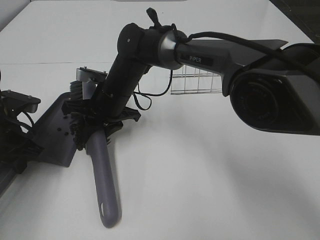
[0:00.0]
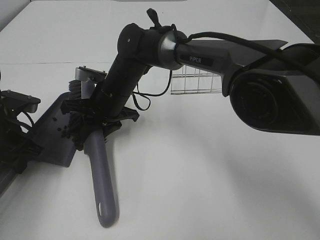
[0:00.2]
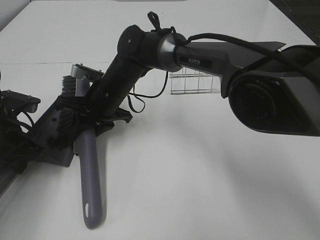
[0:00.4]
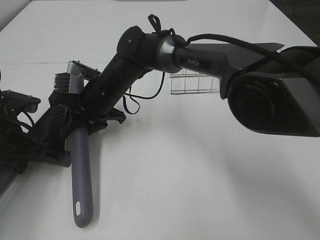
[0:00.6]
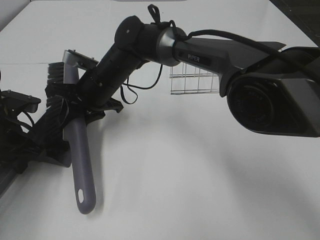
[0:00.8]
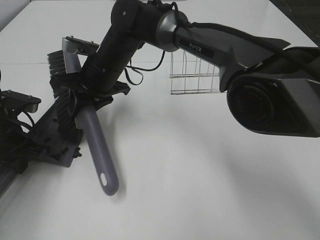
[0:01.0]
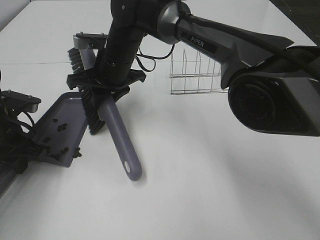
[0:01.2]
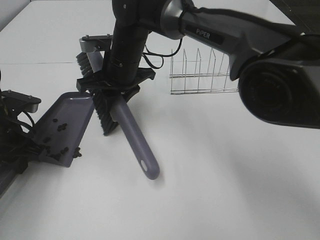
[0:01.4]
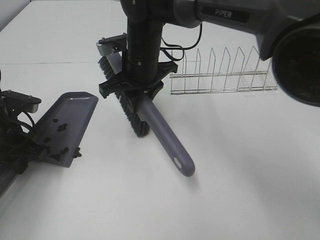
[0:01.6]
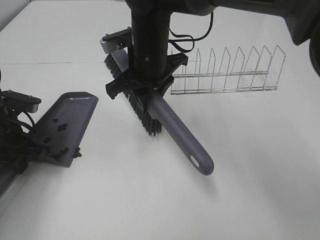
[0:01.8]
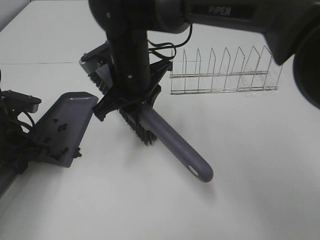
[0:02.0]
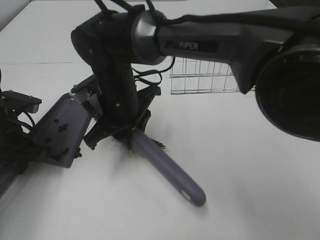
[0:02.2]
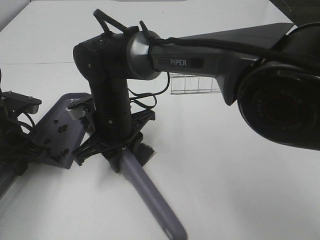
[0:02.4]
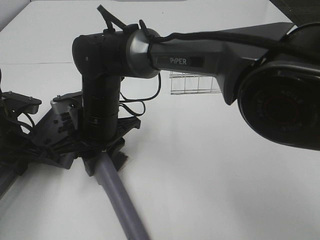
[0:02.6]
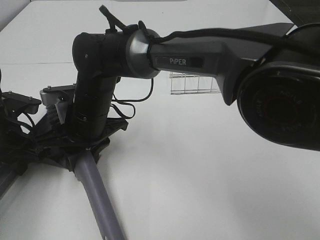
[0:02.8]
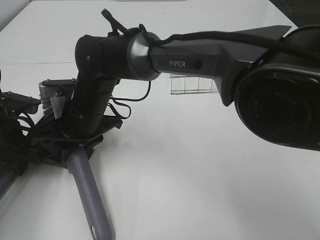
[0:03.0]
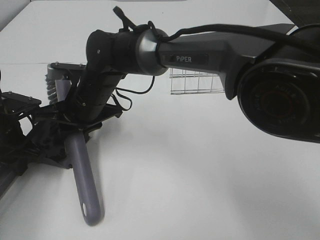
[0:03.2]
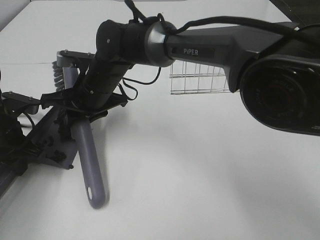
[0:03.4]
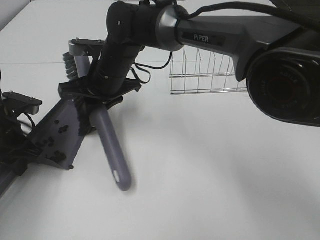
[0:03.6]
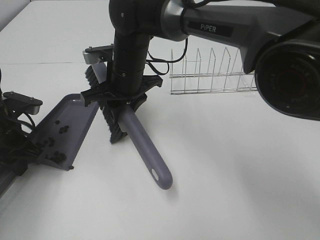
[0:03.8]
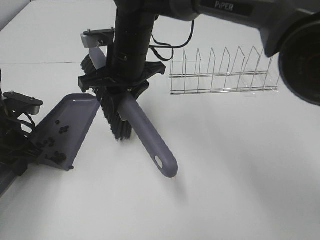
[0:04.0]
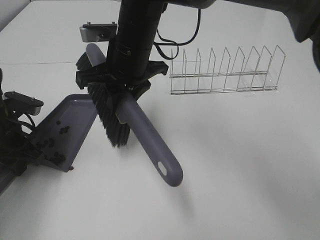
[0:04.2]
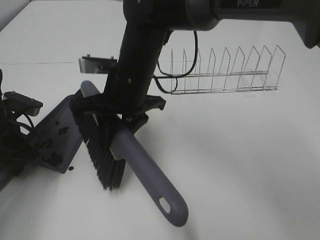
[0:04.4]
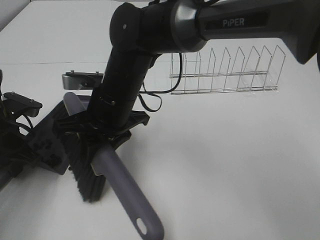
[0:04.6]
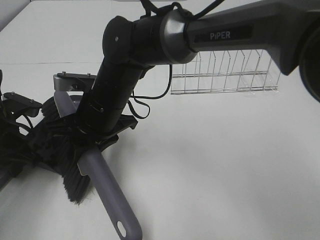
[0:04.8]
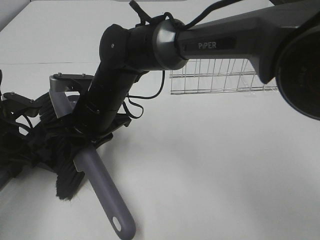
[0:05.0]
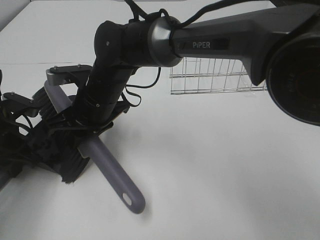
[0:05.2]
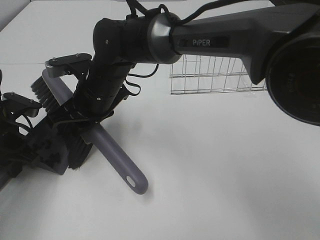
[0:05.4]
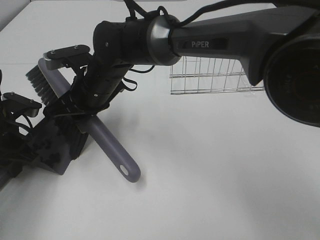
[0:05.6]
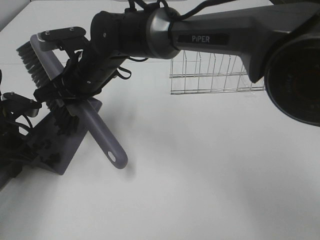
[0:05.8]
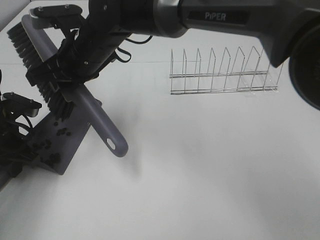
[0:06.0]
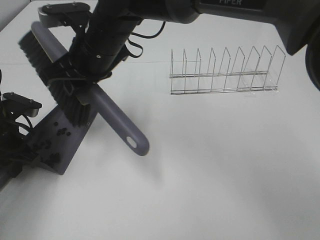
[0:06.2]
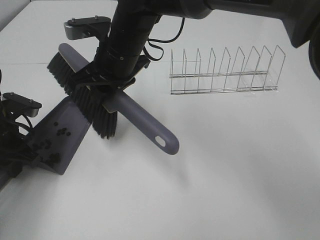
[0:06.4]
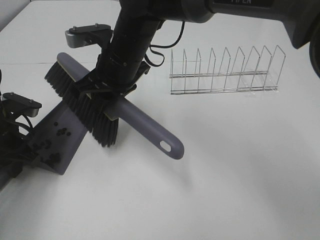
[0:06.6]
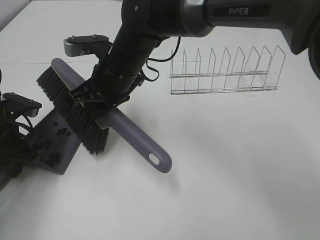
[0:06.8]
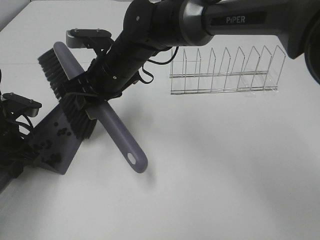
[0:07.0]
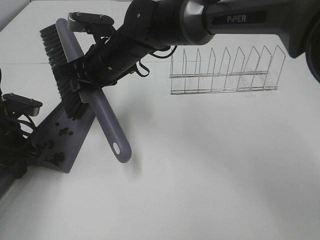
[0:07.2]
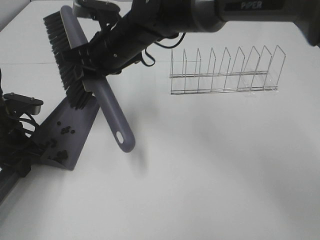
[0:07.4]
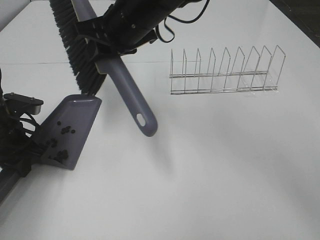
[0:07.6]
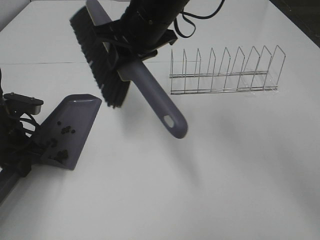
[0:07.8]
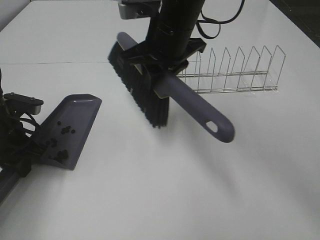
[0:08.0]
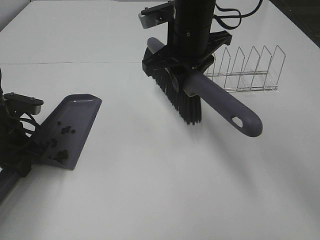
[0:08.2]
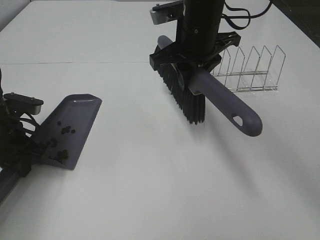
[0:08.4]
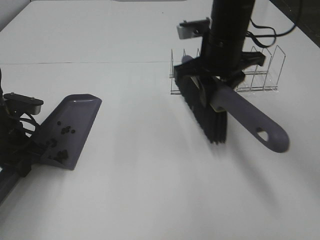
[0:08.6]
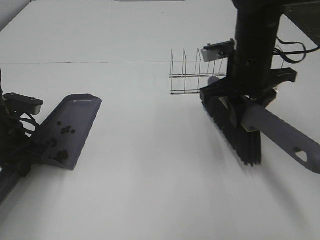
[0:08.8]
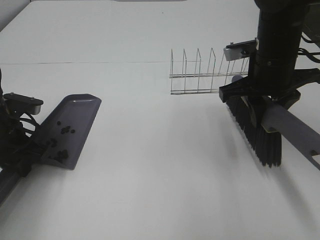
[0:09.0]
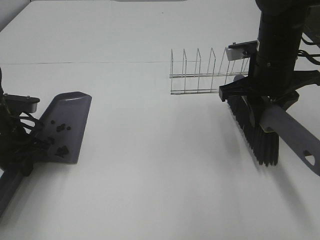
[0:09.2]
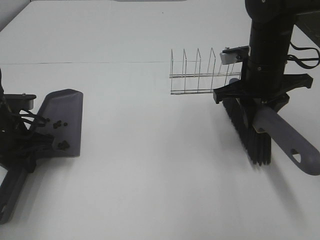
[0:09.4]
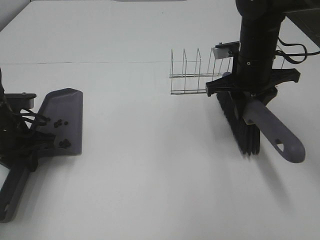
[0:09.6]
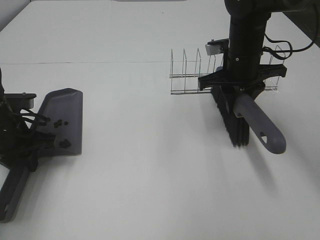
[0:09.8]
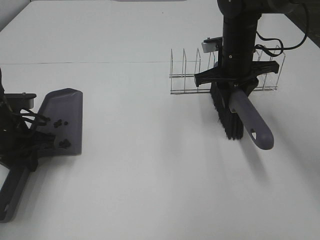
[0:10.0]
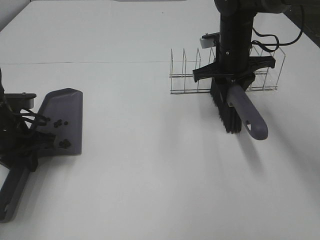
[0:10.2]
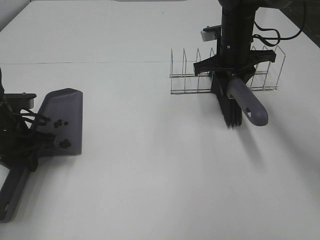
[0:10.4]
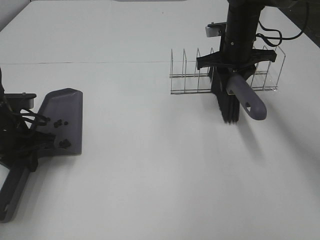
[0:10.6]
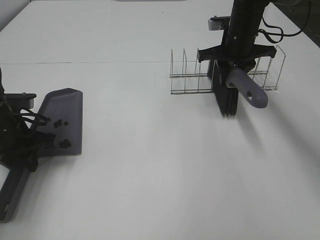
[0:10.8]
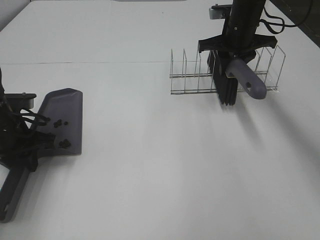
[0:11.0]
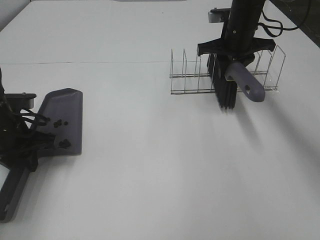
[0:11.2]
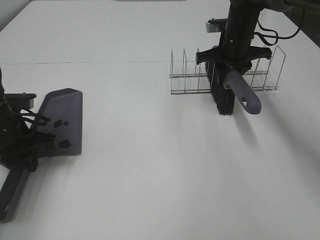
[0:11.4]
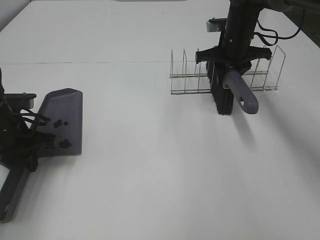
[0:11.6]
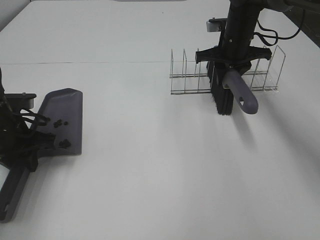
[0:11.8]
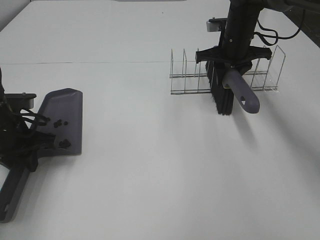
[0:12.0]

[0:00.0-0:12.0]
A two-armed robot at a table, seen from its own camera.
Task of the whole recording: Sweep Coffee Bean.
Step, 0:00.0 to 0:07.4: Right hand:sweep the coffee beans into the dustpan.
0:00.0 to 0:01.6: The right gripper is displaced upward and to the right by approximately 10 cm.
0:01.6 to 0:03.0: The right gripper is displaced to the left, backward and downward by roughly 15 cm.
0:03.0 to 0:04.4: The right gripper goes about 10 cm to the right and upward.
0:04.4 to 0:06.0: The right gripper moves to the left, some 5 cm.
0:06.0 to 0:07.6: The right gripper travels to the right by approximately 10 cm.
0:07.6 to 0:09.0: The right gripper moves to the right, some 20 cm.
0:09.0 to 0:10.4: The right gripper moves forward, approximately 10 cm.
0:10.4 to 0:12.0: The grippers move only a little.

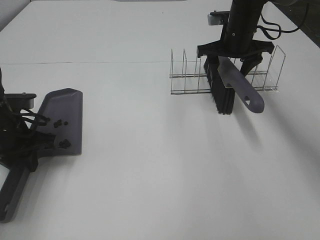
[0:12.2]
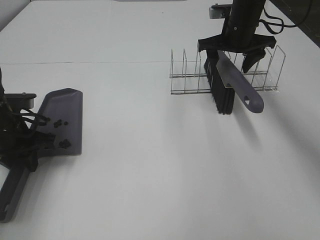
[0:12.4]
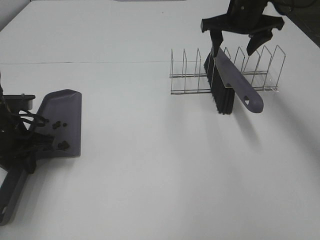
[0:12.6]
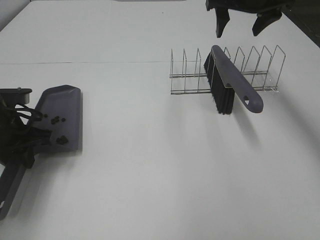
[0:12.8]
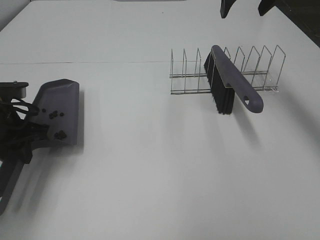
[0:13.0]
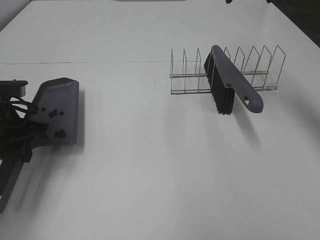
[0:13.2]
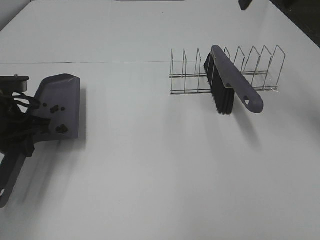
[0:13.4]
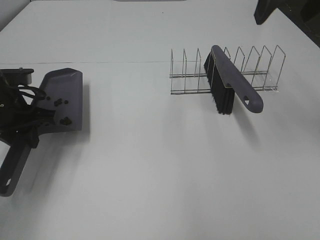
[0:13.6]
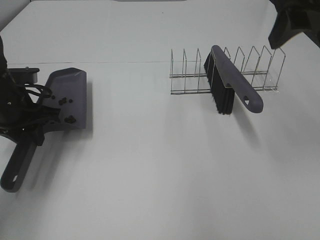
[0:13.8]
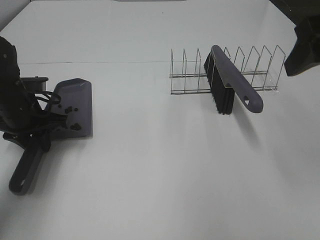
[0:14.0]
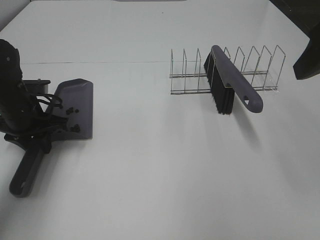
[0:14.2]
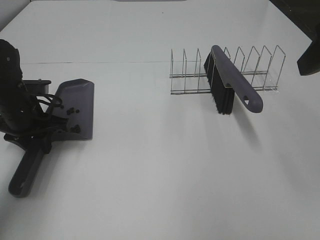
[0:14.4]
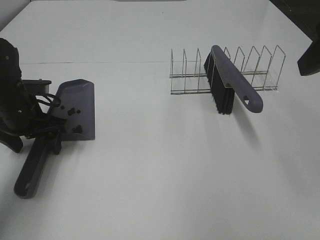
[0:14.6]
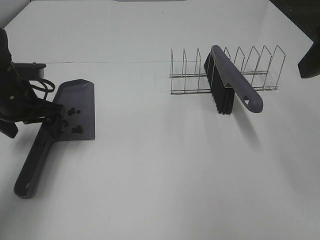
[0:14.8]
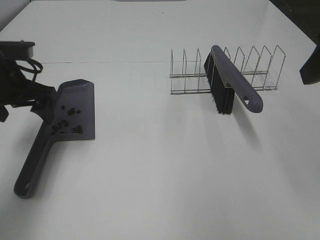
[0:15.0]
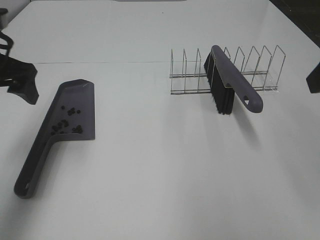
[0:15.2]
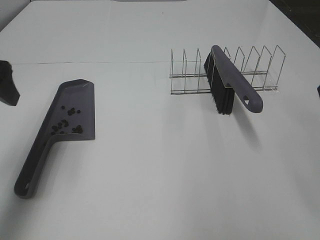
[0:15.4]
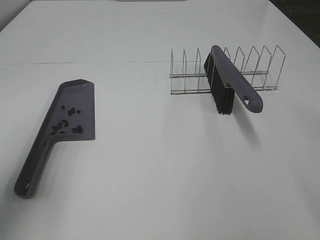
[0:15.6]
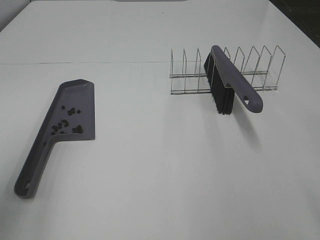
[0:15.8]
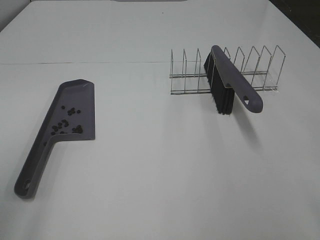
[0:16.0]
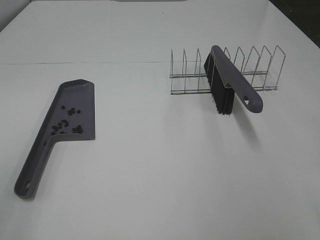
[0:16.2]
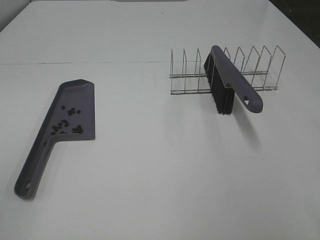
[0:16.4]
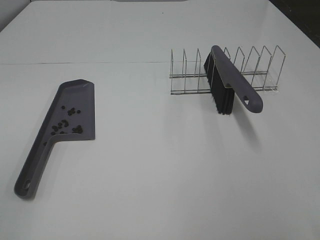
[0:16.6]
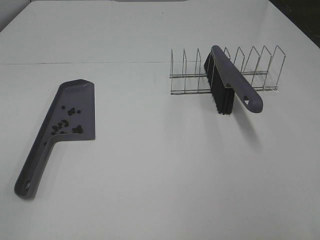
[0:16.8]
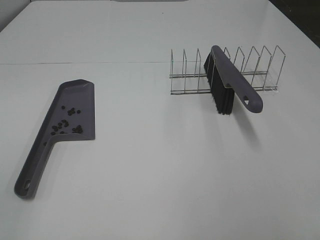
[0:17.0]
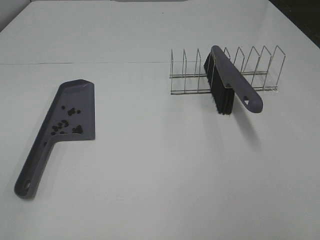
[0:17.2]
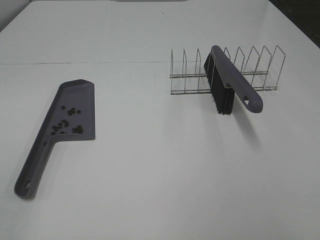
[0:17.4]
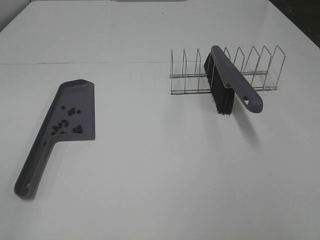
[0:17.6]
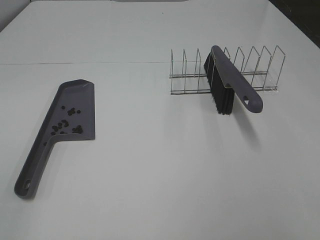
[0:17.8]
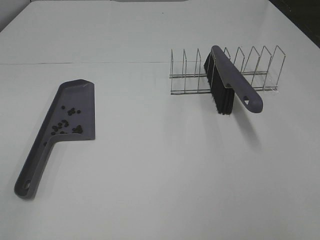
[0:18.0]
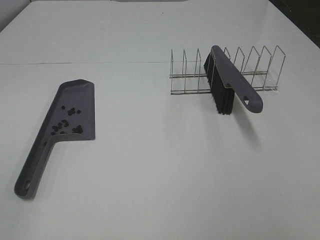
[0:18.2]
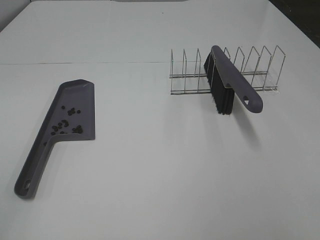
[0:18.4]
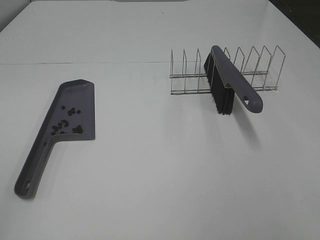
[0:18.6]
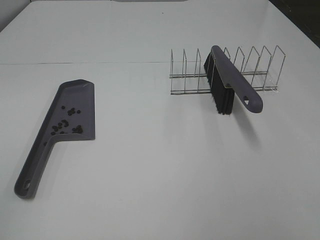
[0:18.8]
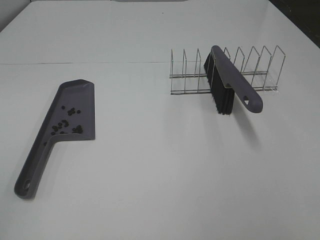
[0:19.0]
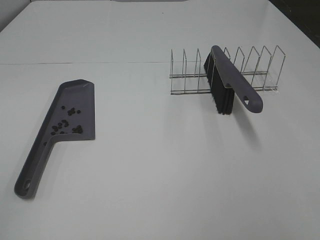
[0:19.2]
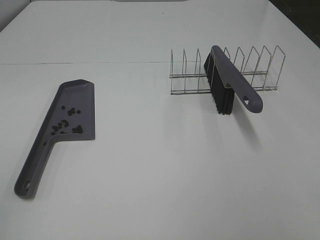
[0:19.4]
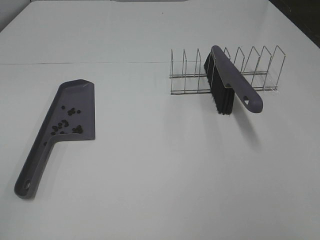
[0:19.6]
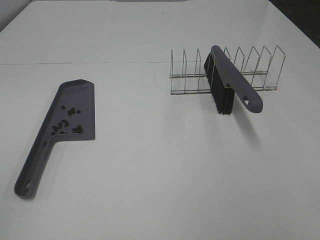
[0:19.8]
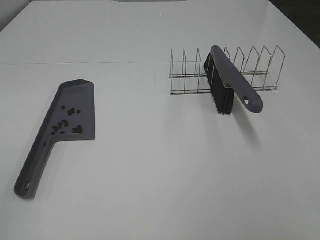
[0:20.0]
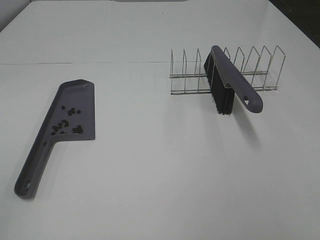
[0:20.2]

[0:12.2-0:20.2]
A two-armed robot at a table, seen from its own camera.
Task of the whole recording: Sweep Coffee Bean.
Step, 0:12.6 to 0:14.6: Left hand:place the dustpan on the table.
0:12.2 to 0:13.8: The right gripper moves backward and upward, roughly 25 cm.
0:13.8 to 0:15.4: The right gripper moves backward, approximately 10 cm; the left gripper heads upward and backward, covering roughly 15 cm, and opens.
0:15.4 to 0:17.0: The left gripper goes roughly 25 cm backward.
